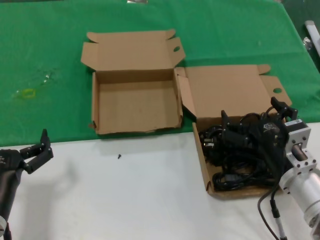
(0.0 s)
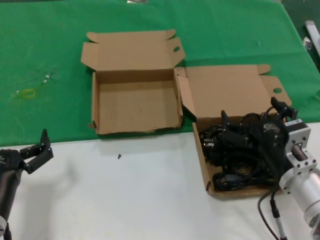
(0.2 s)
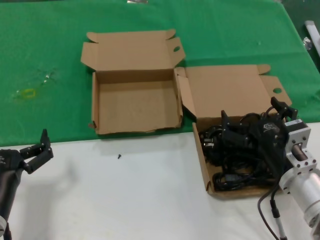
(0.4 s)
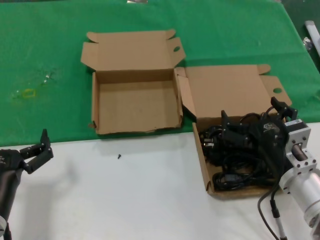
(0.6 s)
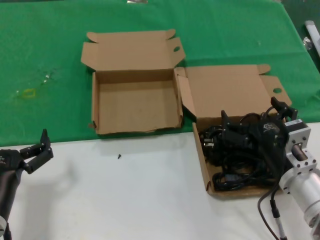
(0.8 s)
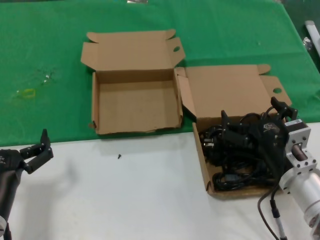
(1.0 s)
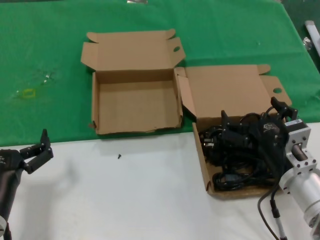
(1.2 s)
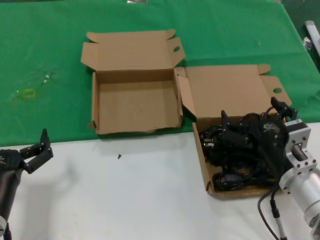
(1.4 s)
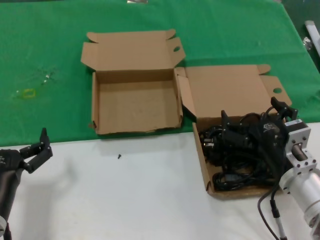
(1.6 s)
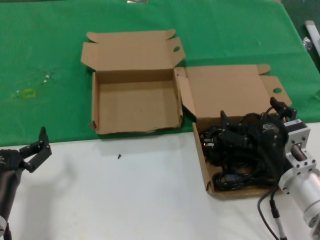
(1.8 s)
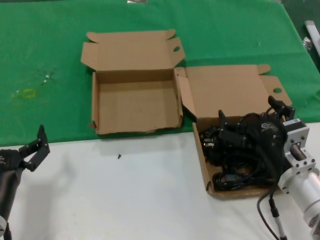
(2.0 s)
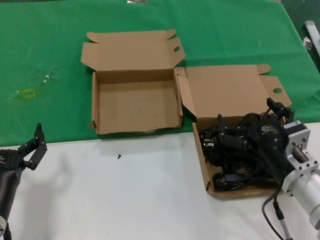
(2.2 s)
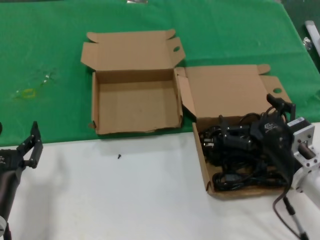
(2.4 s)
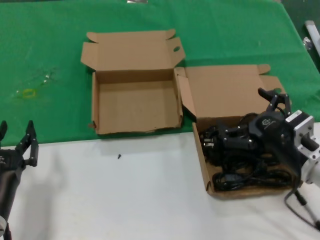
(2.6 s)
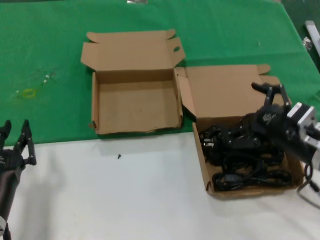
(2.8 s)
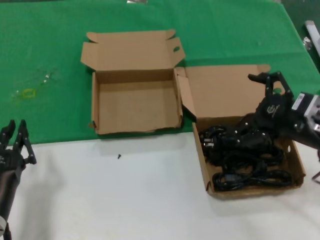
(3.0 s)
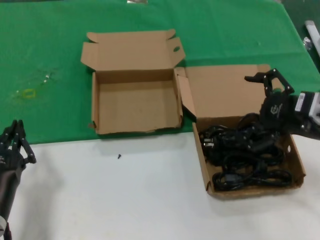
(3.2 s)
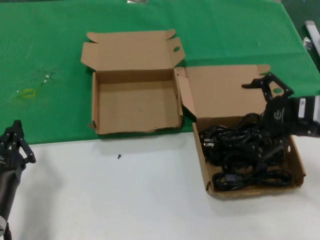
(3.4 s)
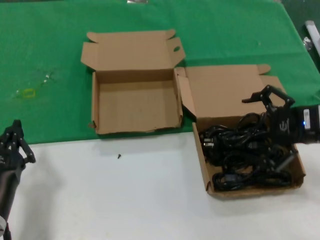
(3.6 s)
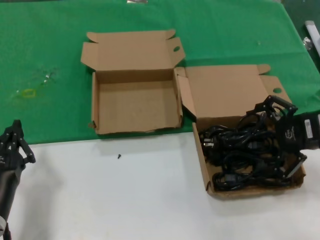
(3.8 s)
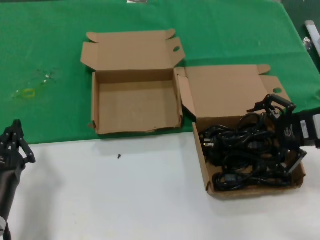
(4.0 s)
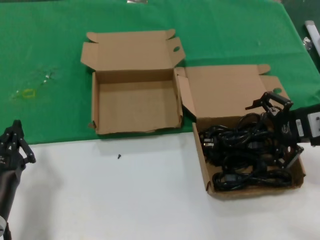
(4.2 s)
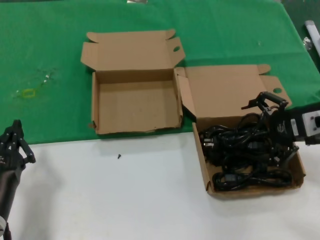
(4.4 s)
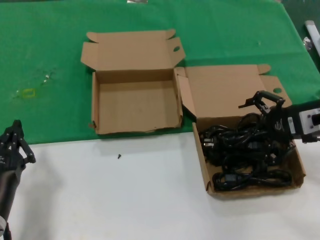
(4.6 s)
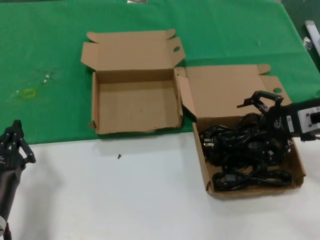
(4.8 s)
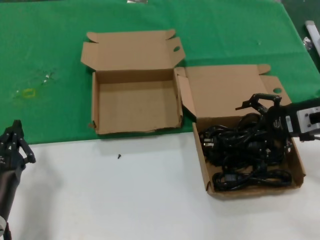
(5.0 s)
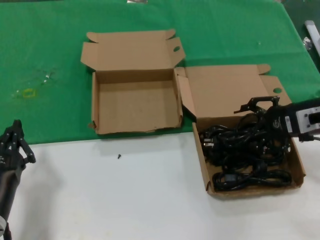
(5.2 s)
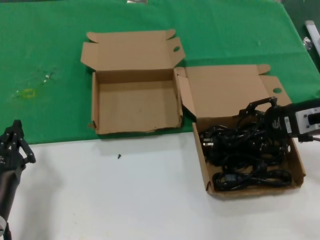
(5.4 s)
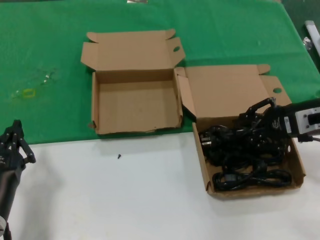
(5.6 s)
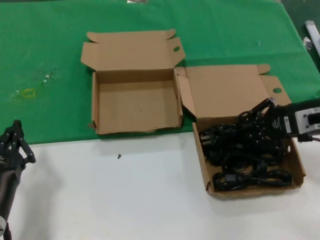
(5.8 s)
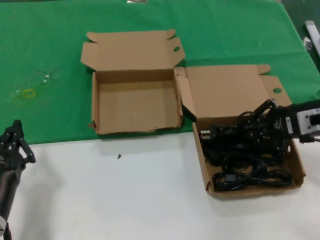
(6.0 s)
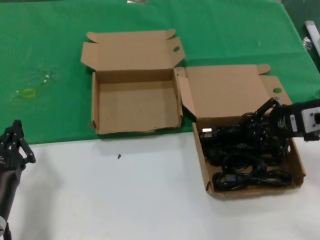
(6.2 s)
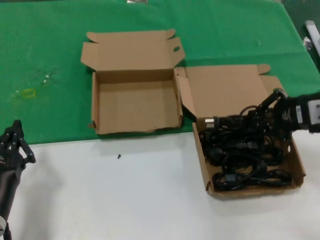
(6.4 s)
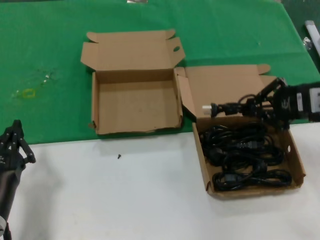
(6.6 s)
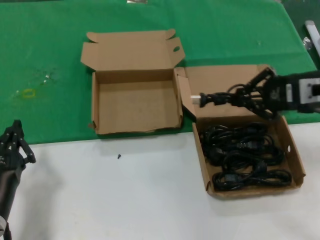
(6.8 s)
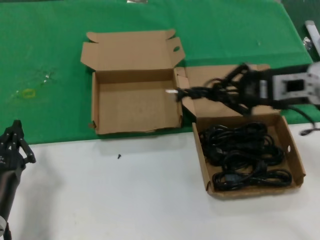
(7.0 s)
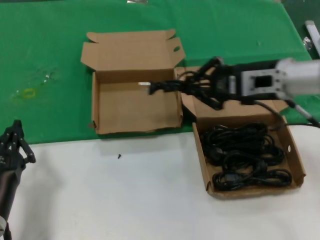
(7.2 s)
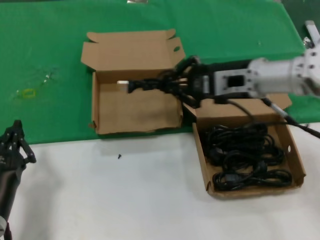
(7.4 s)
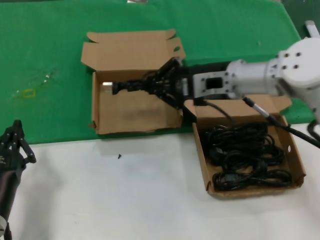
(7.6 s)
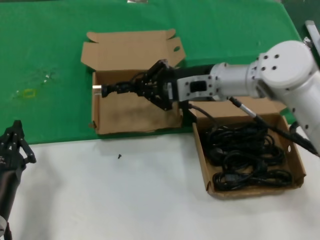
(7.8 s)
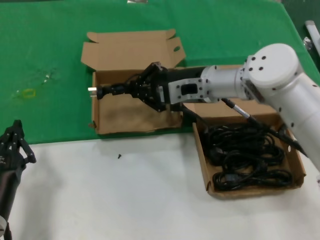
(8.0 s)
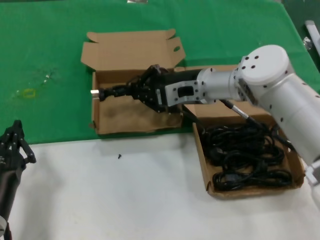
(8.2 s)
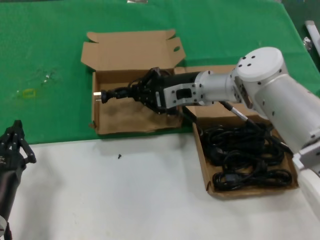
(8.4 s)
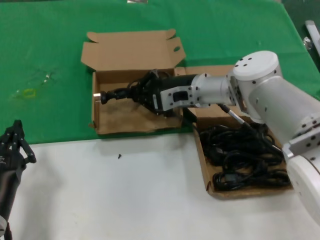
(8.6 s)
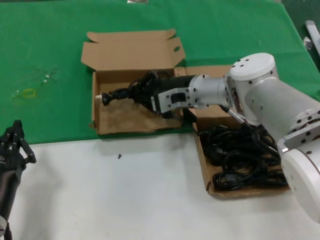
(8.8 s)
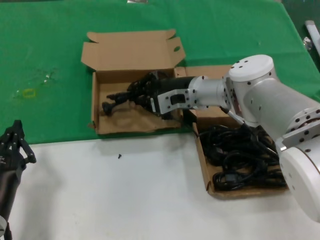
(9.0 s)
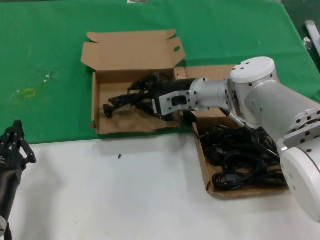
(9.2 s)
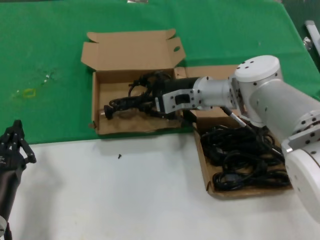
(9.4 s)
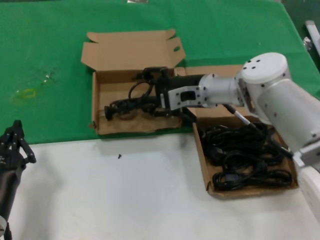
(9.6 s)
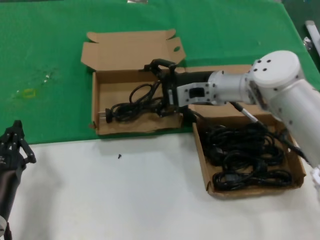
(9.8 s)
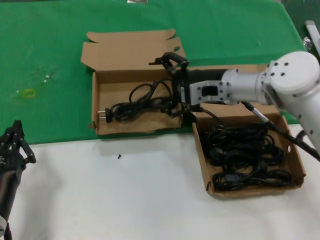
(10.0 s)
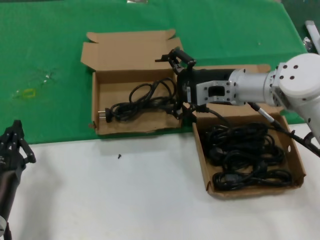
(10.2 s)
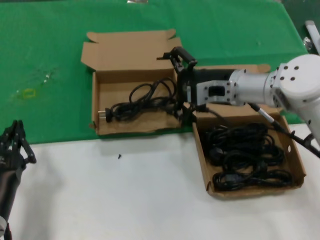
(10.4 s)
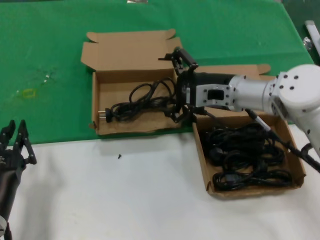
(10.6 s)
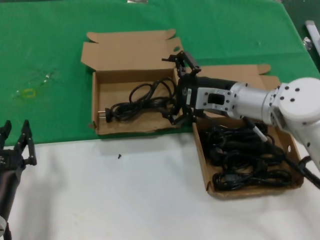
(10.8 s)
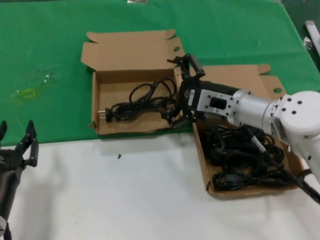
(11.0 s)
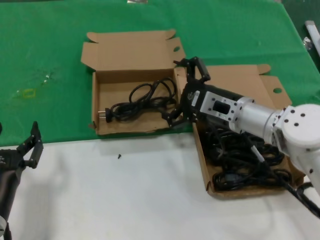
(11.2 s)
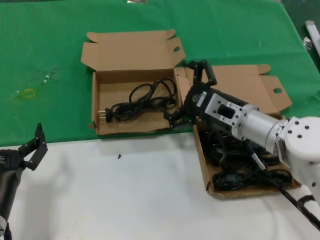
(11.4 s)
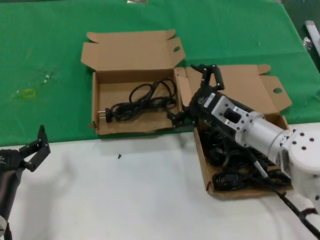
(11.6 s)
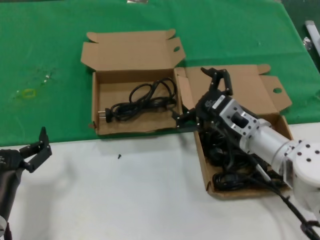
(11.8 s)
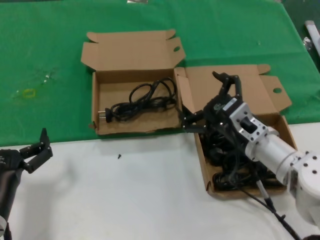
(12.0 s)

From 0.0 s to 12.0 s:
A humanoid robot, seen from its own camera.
Task of the whole recording: take the parts from the box containing them and put them into an empty box.
Step, from 0.0 s to 5.6 s: Grasp the data cable.
Step, from 6.0 s to 9.4 s: Place the data cable in the another box.
From 0.0 s to 1.6 s: The two hands keep their place.
From 1.6 s to 3.0 s: The right hand shifts some 15 cm upward and to the right.
From 3.0 s to 4.4 s: The right hand shifts roughly 5 cm forward.
From 4.4 s to 6.0 s: The hands move only a little.
From 6.0 s to 7.6 s: The right hand goes roughly 20 cm to the left and forward.
From 7.6 s to 9.0 s: The right hand is displaced downward, forward and to the left by some 10 cm.
From 9.0 s to 10.4 s: The right hand travels to the right and backward by roughly 10 cm.
From 10.4 s to 12.0 s: The right hand shifts some 15 cm backward and downward.

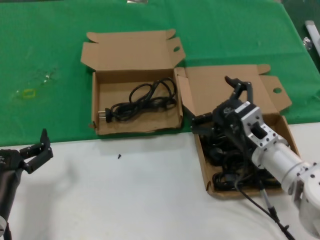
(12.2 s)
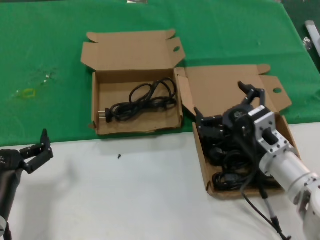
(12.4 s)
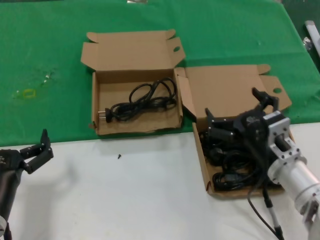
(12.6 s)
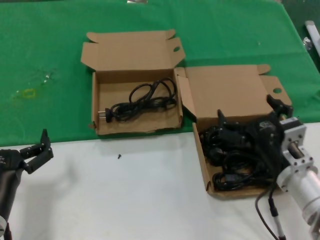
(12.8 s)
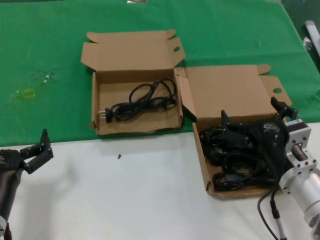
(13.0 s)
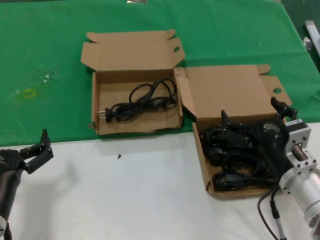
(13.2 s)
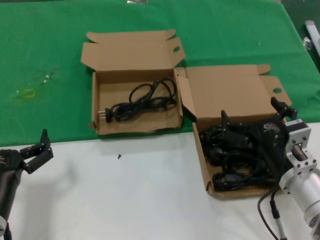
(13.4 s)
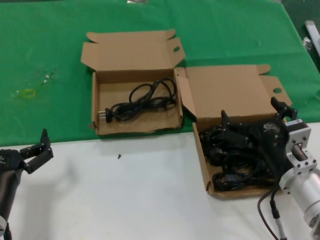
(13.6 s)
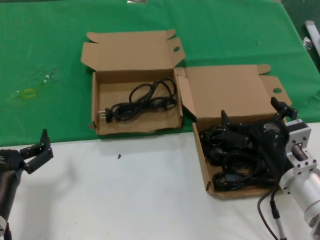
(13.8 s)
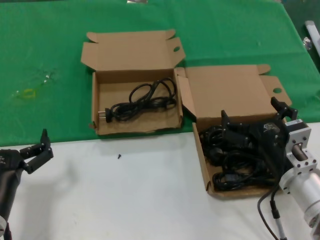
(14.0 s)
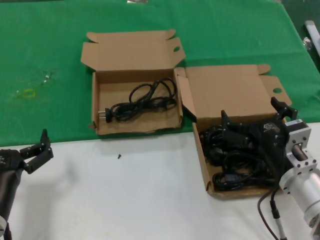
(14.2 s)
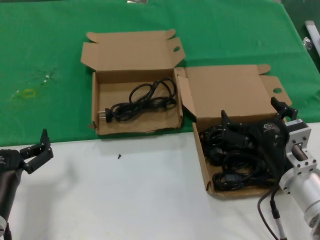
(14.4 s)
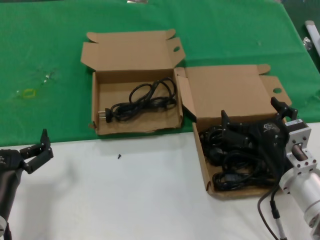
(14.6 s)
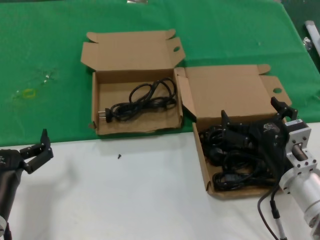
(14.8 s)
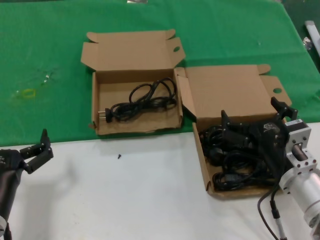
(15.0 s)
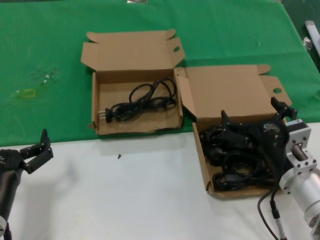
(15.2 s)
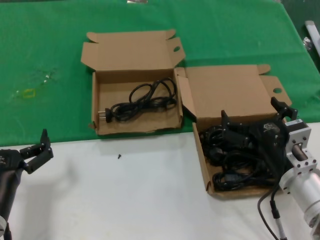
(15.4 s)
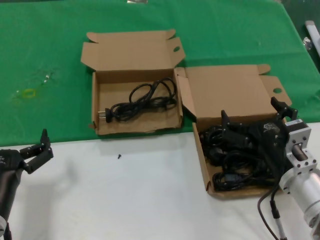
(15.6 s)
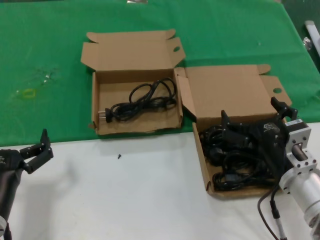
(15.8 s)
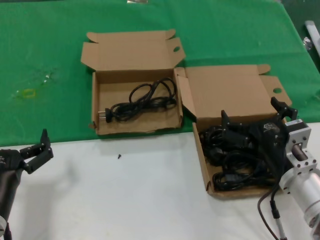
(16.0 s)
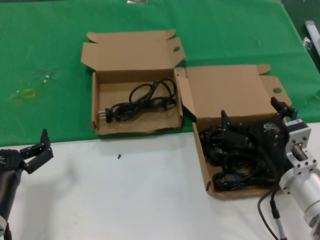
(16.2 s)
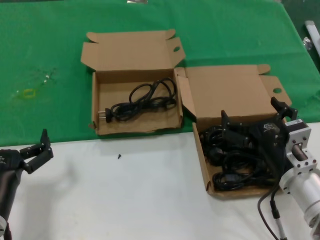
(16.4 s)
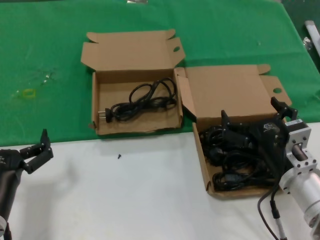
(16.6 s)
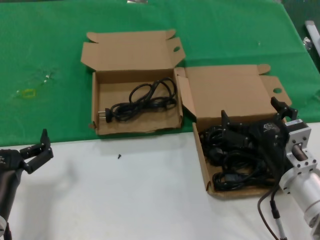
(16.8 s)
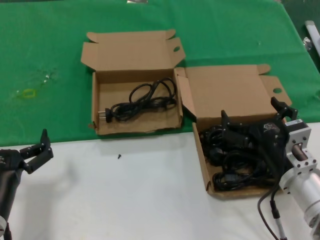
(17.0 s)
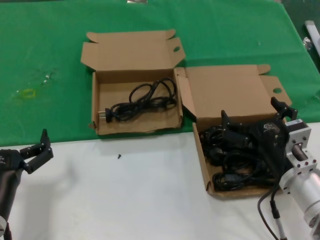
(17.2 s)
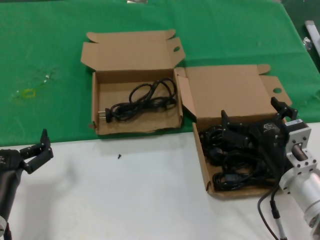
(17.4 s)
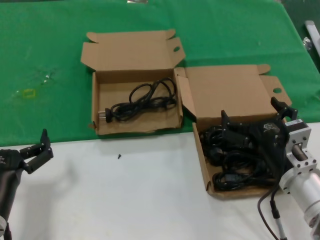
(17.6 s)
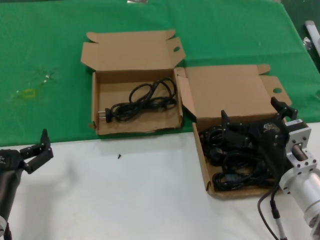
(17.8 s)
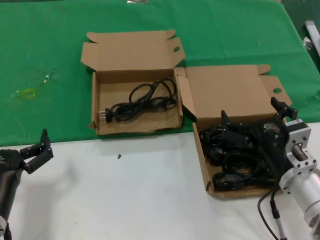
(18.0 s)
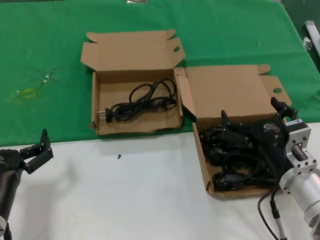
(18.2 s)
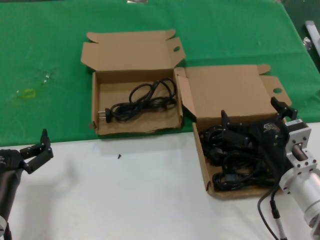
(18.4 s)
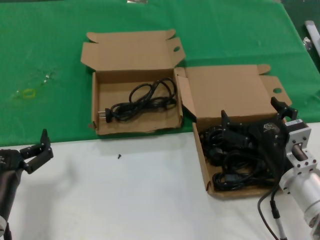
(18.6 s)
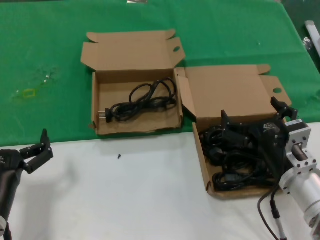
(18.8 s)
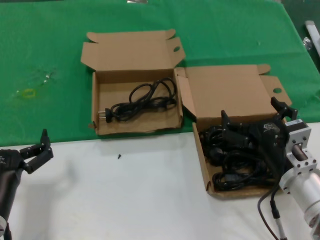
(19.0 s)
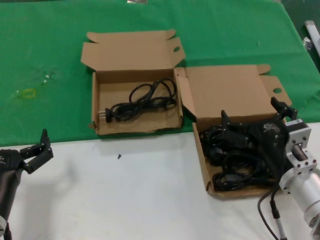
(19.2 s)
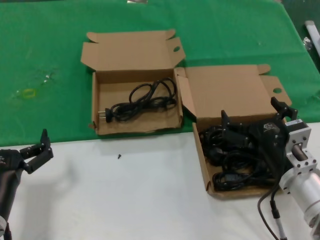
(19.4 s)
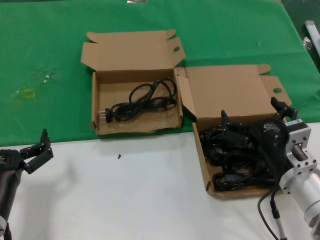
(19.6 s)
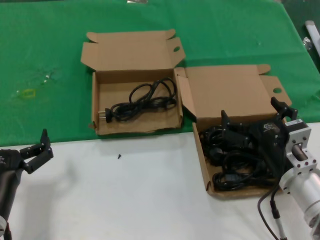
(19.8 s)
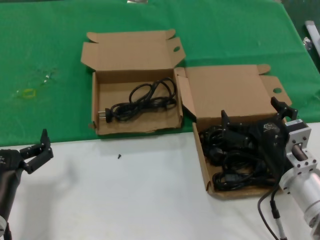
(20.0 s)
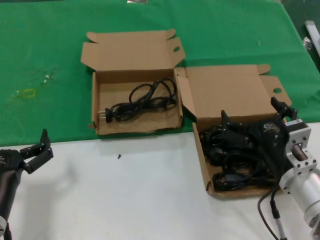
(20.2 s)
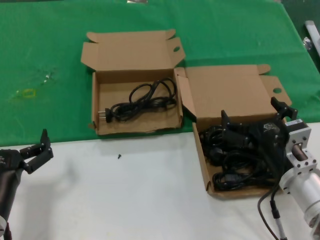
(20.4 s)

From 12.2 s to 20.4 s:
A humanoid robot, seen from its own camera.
Task of the whole recording: take the parts from the box containing them and put them into an empty box.
From 12.2 s to 13.8 s: The right hand shifts about 5 cm backward.
From 13.8 s to 20.4 s: Neither hand changes place.
